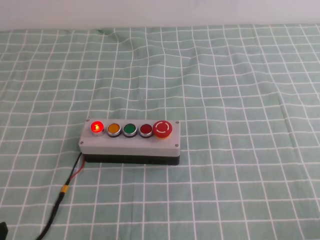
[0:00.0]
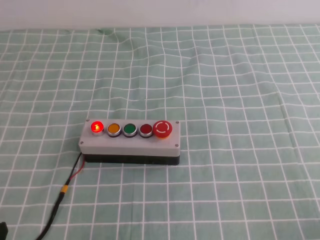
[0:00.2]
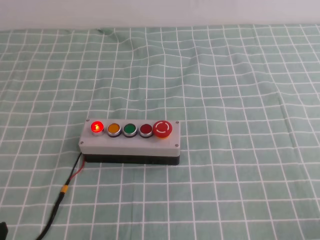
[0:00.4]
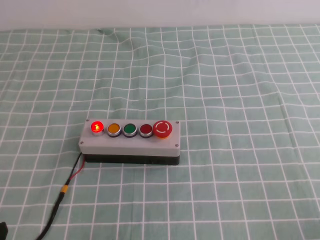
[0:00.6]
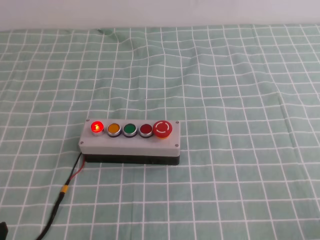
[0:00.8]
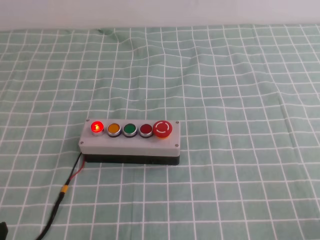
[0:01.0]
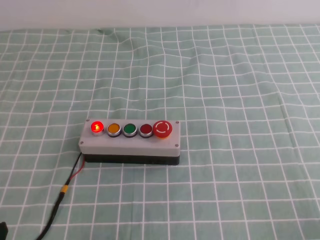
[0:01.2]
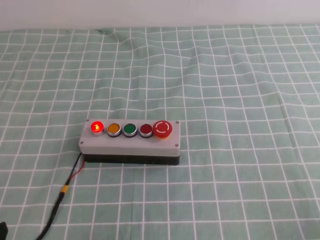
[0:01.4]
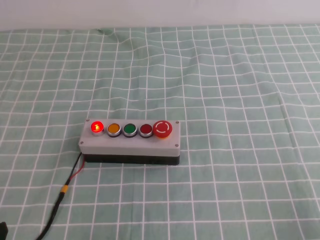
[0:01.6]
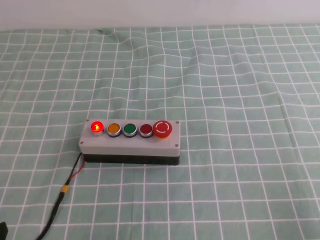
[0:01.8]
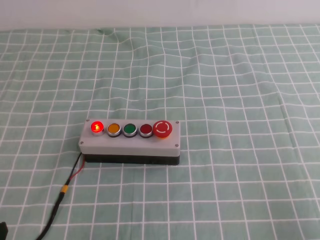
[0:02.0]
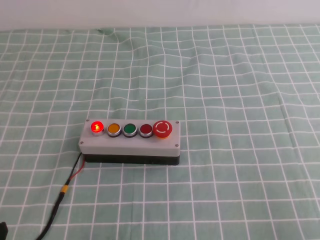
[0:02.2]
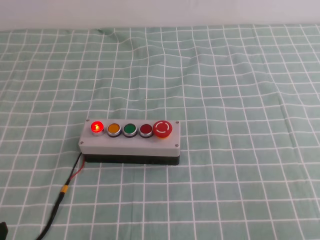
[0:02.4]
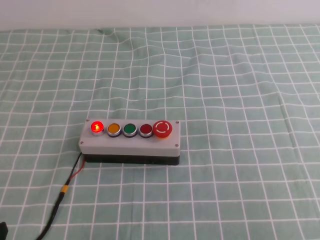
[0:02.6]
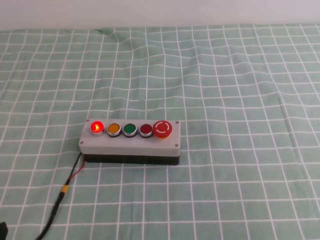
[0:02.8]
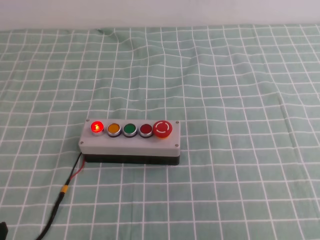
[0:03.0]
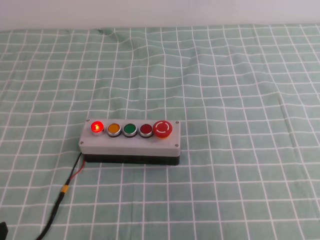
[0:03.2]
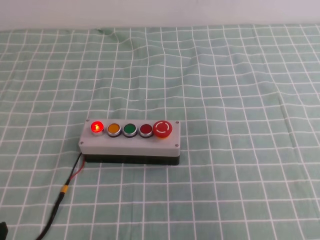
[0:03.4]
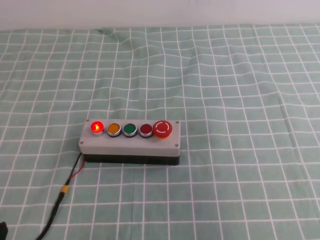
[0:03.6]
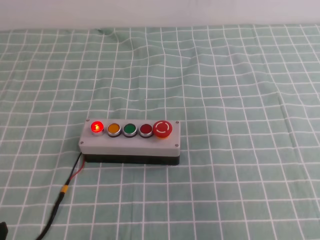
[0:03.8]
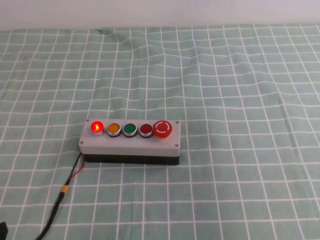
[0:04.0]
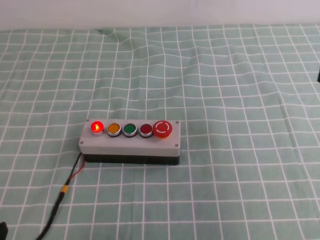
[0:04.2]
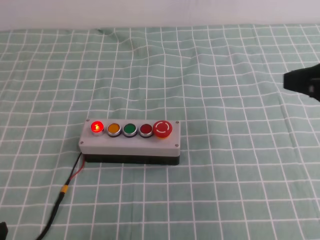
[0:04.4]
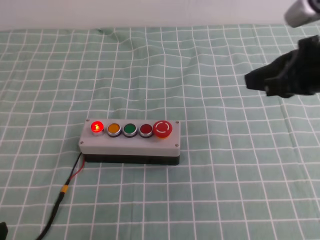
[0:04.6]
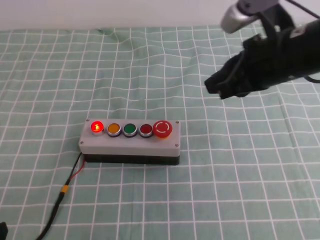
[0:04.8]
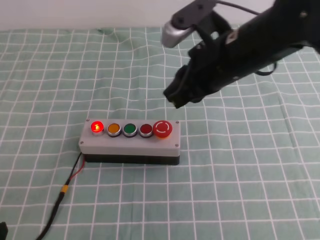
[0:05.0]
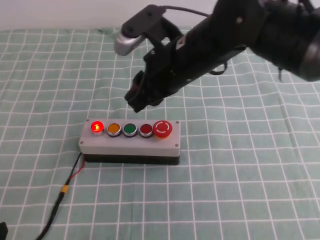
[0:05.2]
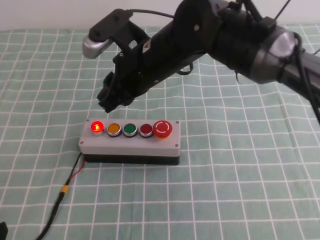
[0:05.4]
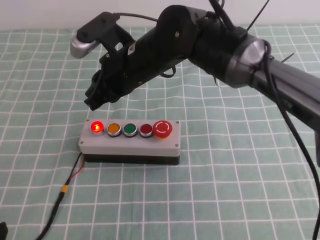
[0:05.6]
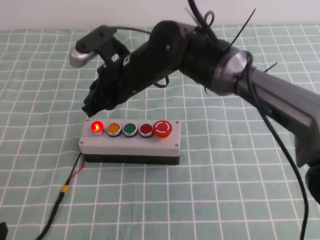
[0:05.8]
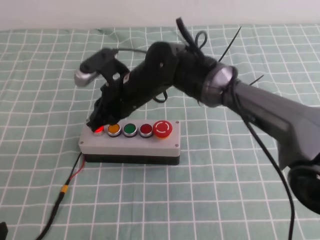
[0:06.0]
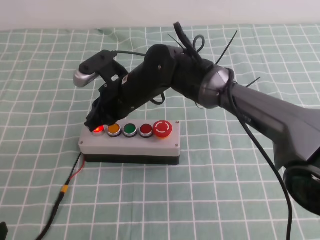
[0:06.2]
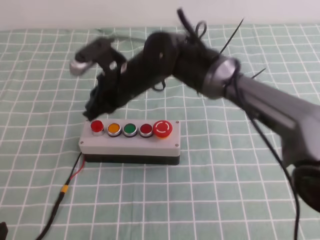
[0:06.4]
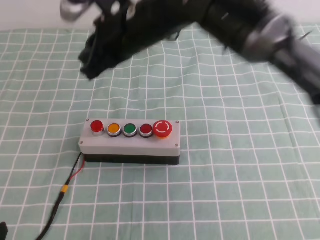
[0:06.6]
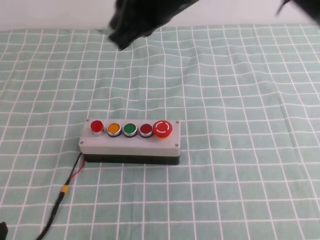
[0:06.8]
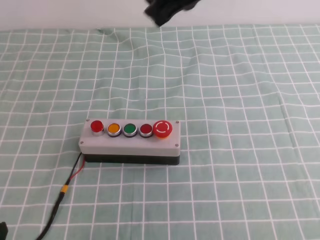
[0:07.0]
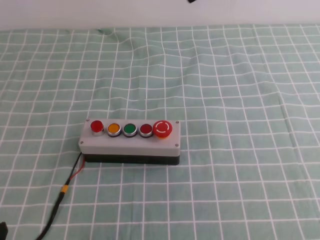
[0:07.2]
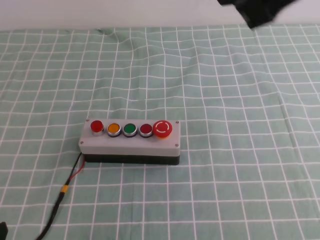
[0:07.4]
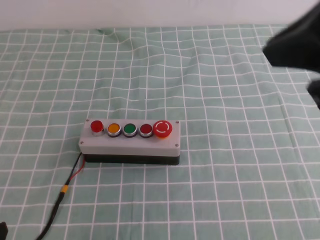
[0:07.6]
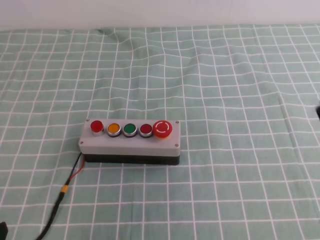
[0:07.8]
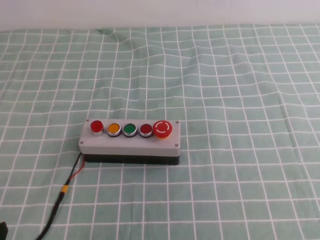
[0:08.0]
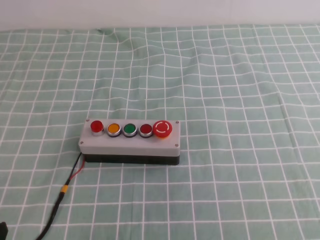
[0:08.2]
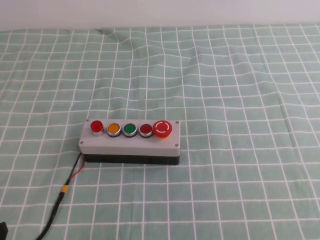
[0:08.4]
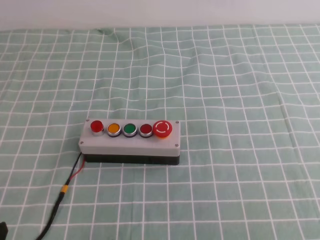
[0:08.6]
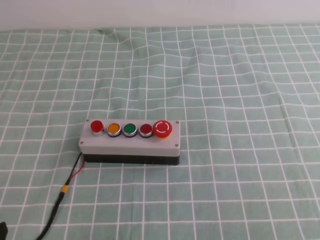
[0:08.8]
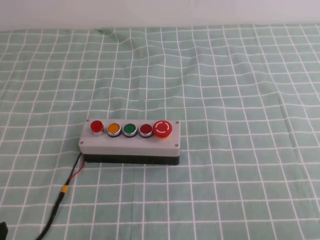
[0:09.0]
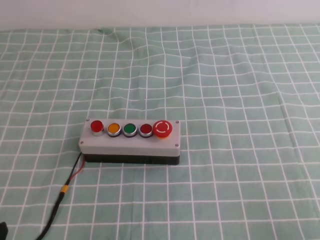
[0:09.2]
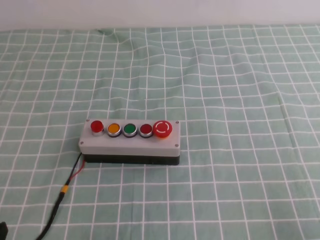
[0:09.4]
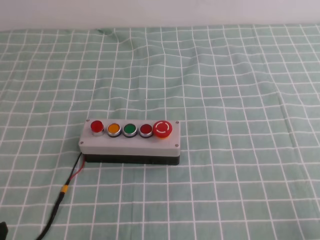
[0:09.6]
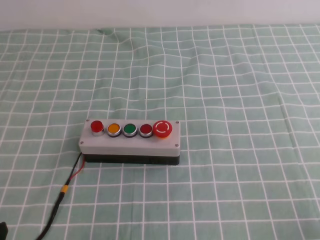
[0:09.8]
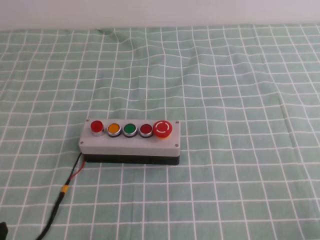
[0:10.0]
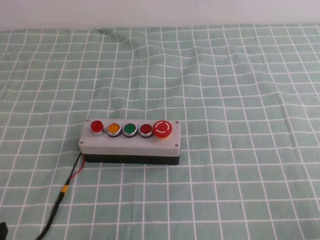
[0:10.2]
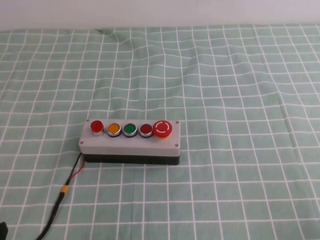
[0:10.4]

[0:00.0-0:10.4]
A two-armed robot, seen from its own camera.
Task of the whole recording: press the button switch on the cyan tablecloth with the right gripper to turn off the button.
Step, 0:00.0 to 0:10.4: Press the button to turn off.
0:03.0 to 0:04.4: The right gripper heads forward, covering approximately 25 cm.
0:04.4 to 0:06.0: The right gripper travels to the left and forward by approximately 35 cm, and opens, then closes once more.
0:06.0 to 0:07.4: The right gripper moves upward, to the right and backward, approximately 35 cm.
0:07.4 to 0:09.0: The right gripper moves downward, to the right and backward, some 35 cm.
